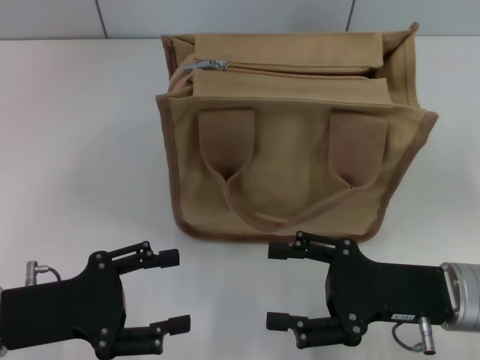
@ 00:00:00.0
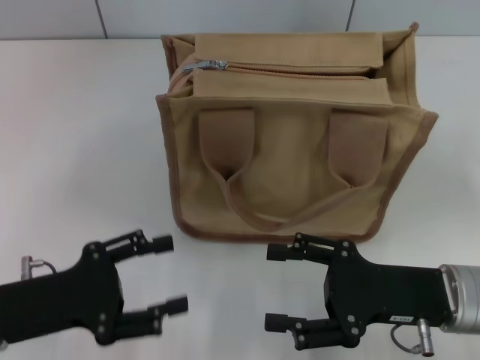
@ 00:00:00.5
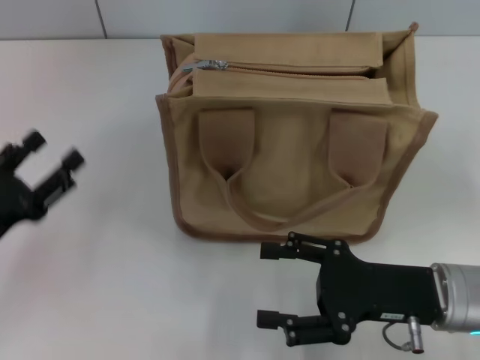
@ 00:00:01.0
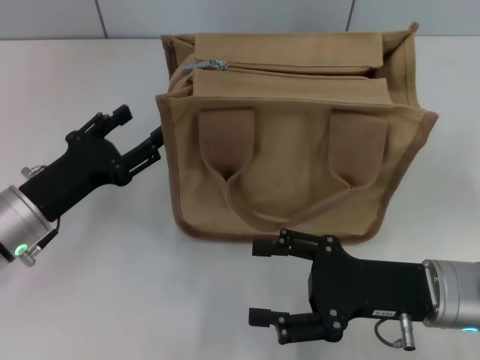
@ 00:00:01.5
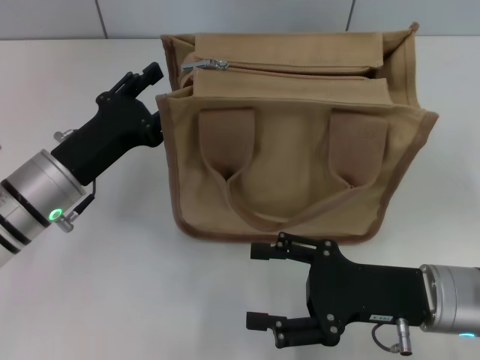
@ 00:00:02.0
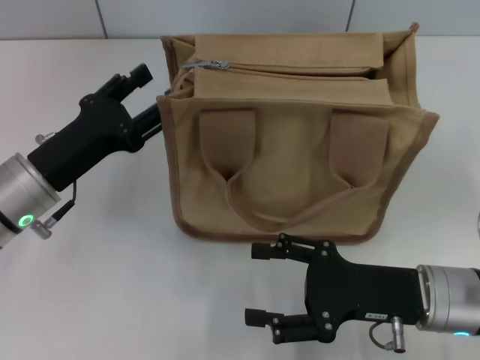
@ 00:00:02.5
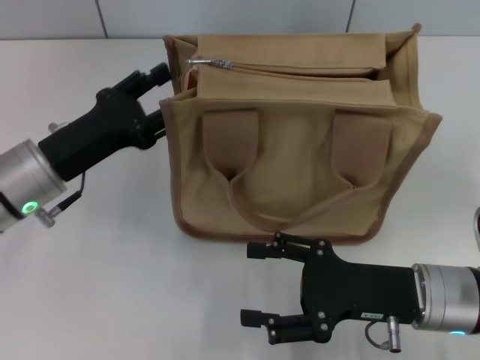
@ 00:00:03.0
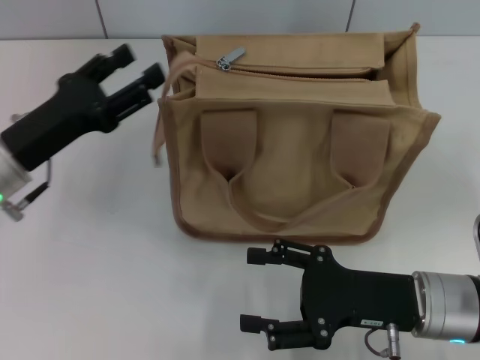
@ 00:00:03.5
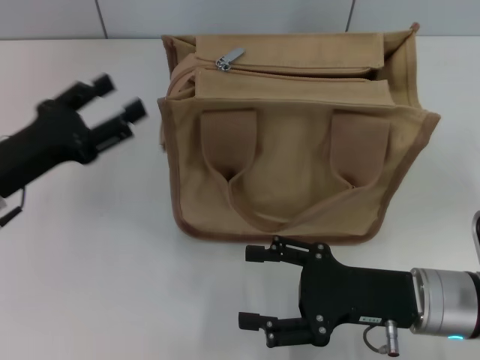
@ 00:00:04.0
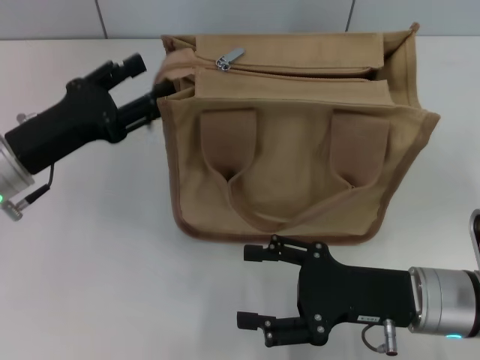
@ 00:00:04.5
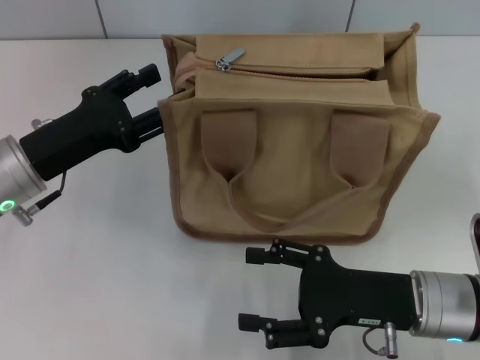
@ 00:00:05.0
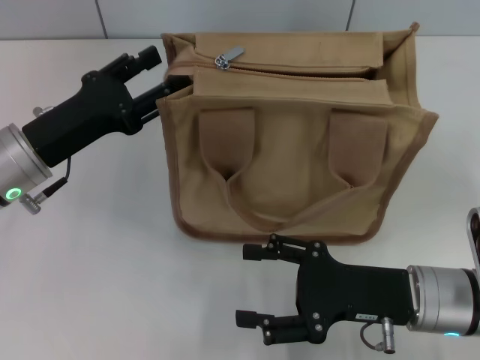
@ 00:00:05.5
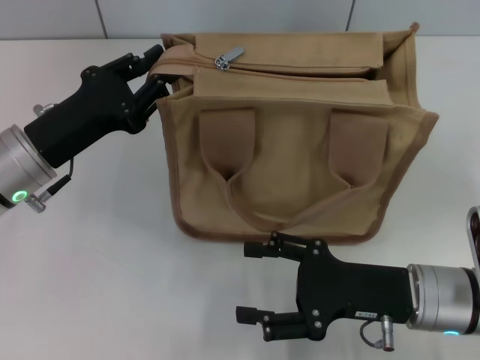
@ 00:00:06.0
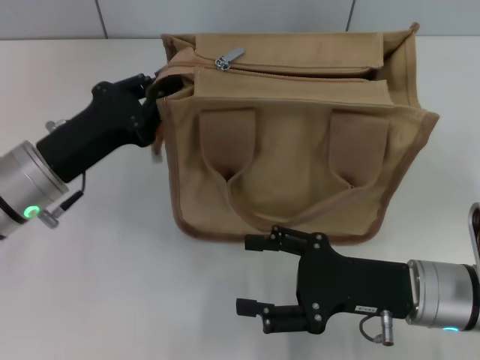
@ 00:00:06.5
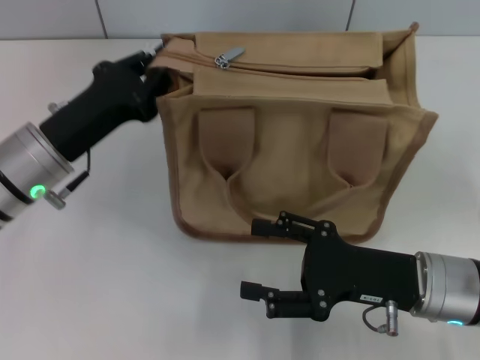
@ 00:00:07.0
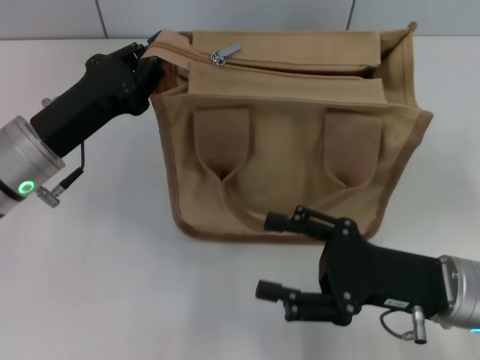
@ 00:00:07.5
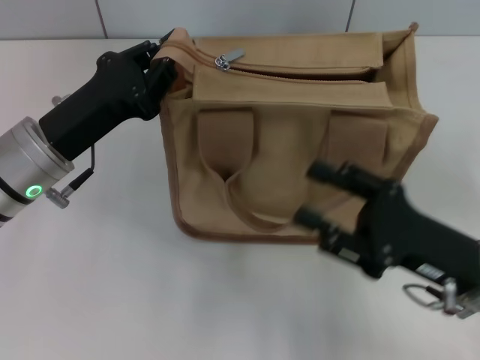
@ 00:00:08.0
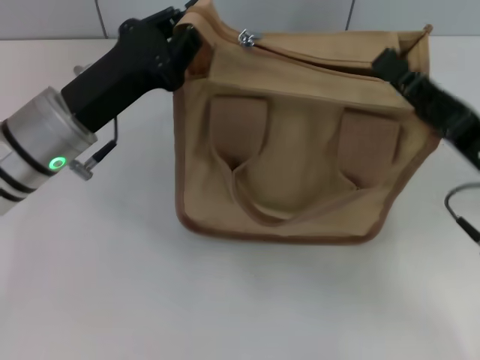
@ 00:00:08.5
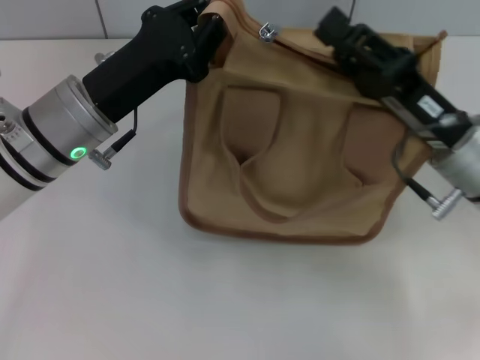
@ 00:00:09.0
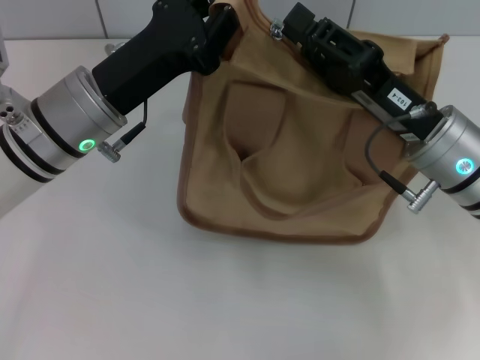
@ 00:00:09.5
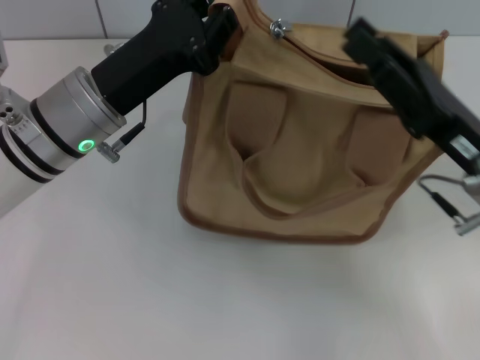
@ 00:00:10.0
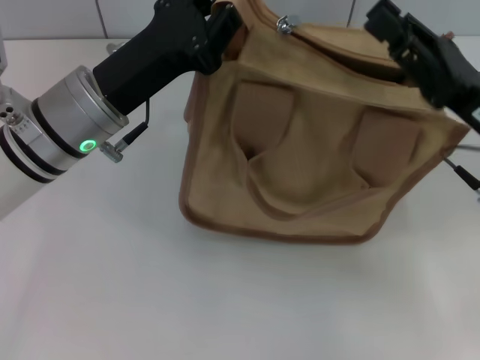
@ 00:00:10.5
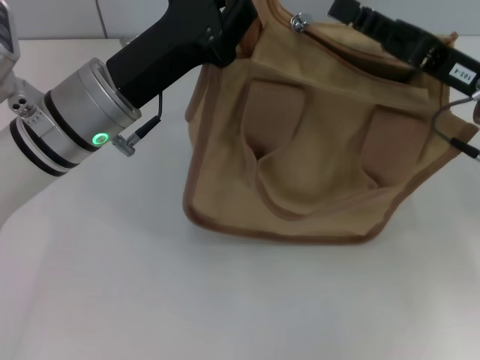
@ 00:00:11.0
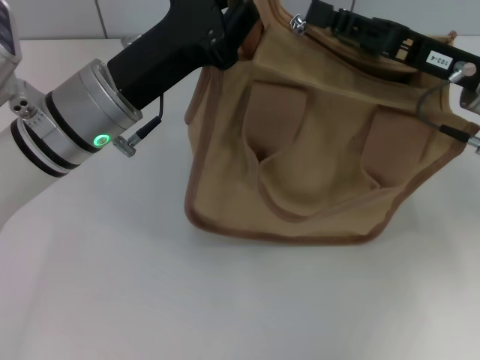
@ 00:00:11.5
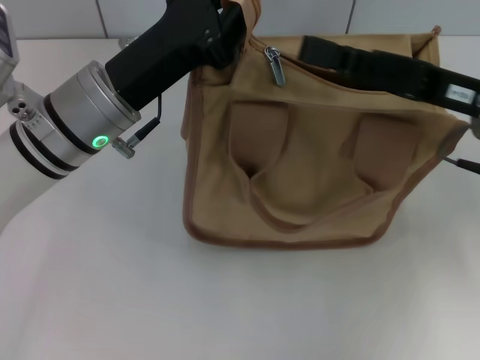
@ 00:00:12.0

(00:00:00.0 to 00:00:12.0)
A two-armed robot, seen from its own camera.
00:00:00.0 - 00:00:02.0: The left gripper heads forward and to the right, covering approximately 10 cm.
00:00:02.0 - 00:00:04.0: The left gripper heads to the left, covering about 5 cm.
00:00:04.0 - 00:00:06.0: The left gripper closes its fingers.
00:00:06.0 - 00:00:08.0: The left gripper closes up.
00:00:08.0 - 00:00:10.0: The right gripper shifts some 5 cm forward, and closes up, while the left gripper changes place by roughly 5 cm.
00:00:10.0 - 00:00:12.0: The right gripper goes roughly 5 cm forward.

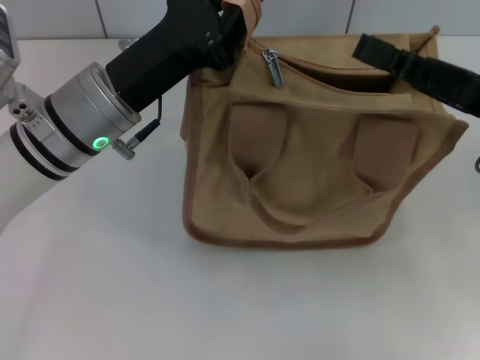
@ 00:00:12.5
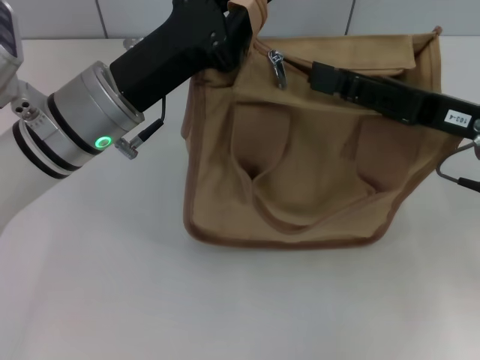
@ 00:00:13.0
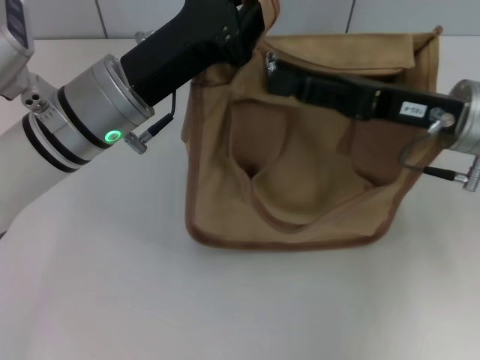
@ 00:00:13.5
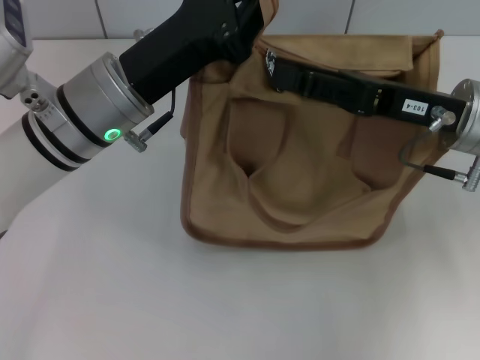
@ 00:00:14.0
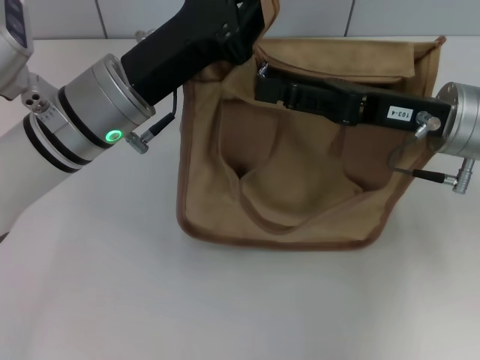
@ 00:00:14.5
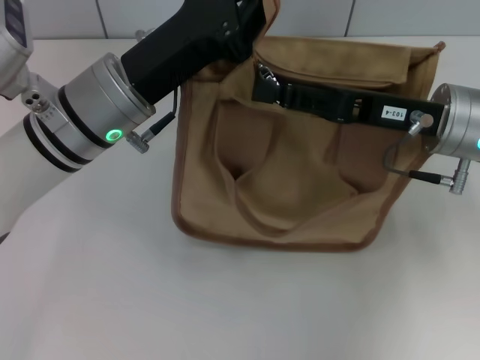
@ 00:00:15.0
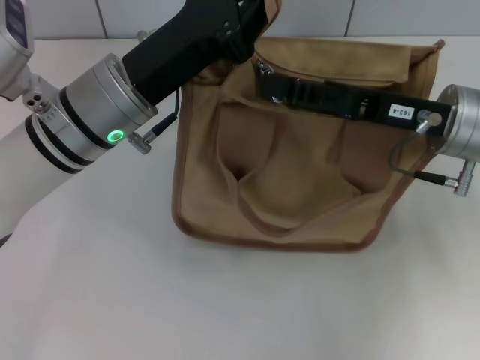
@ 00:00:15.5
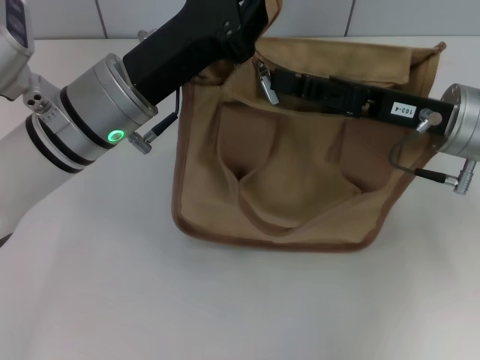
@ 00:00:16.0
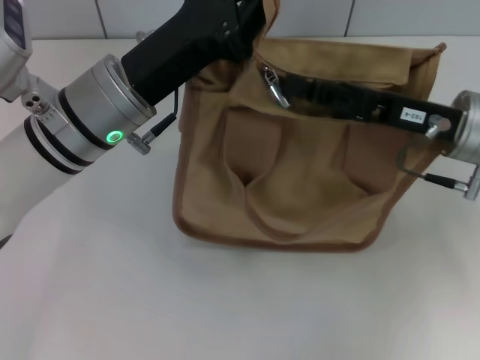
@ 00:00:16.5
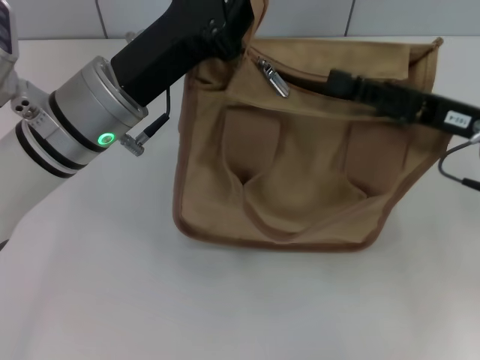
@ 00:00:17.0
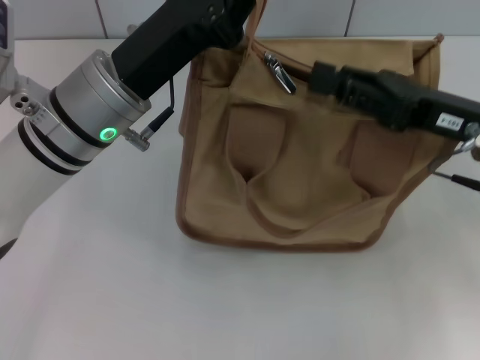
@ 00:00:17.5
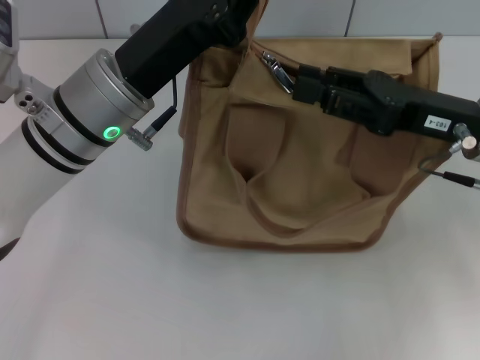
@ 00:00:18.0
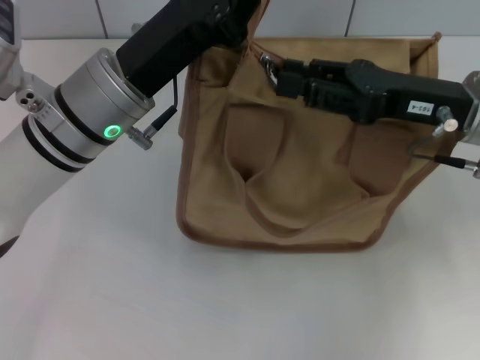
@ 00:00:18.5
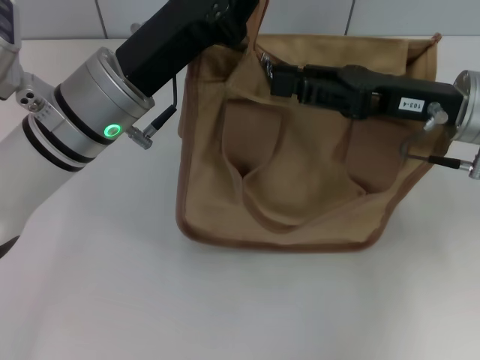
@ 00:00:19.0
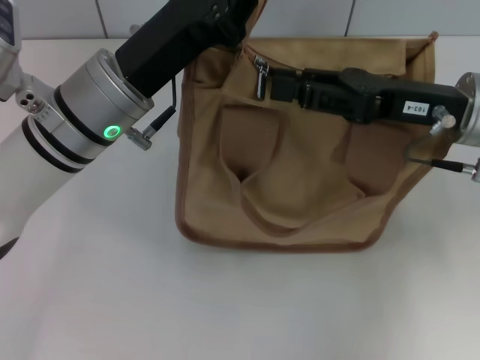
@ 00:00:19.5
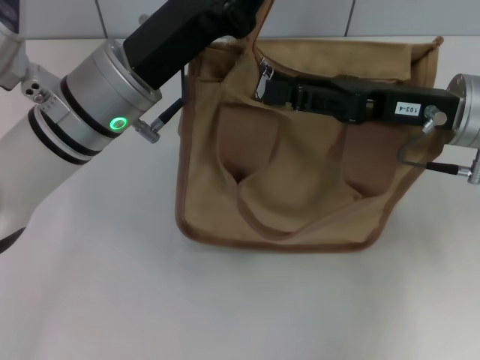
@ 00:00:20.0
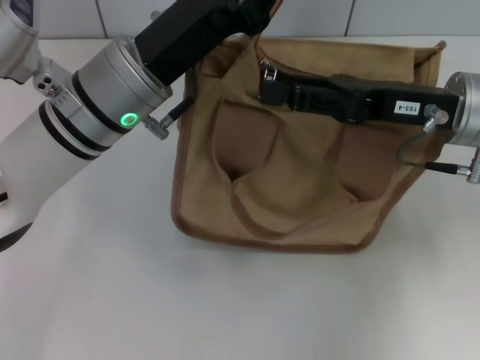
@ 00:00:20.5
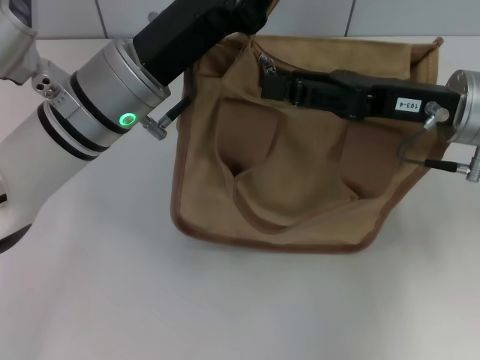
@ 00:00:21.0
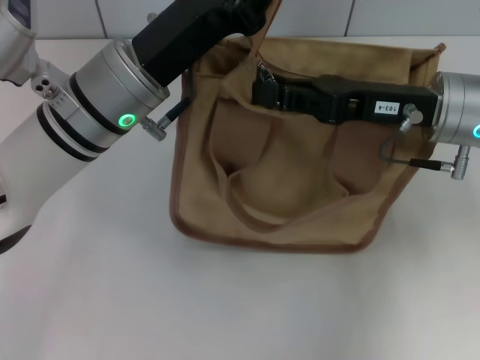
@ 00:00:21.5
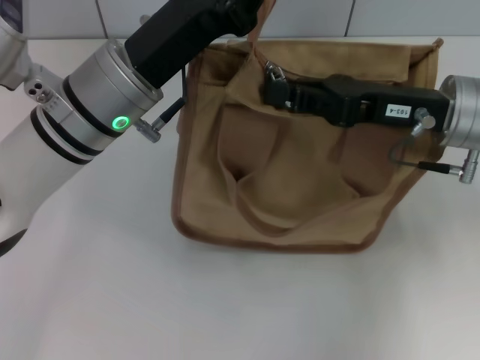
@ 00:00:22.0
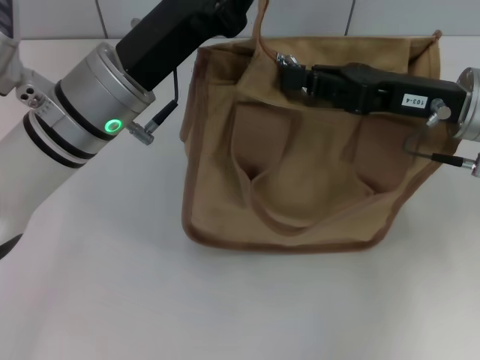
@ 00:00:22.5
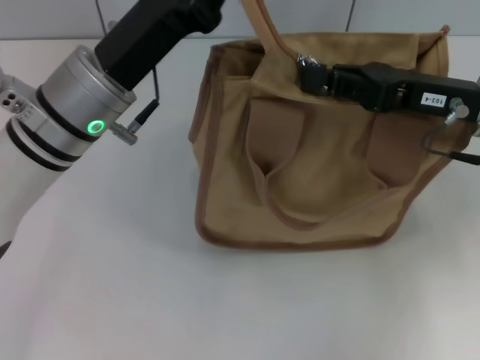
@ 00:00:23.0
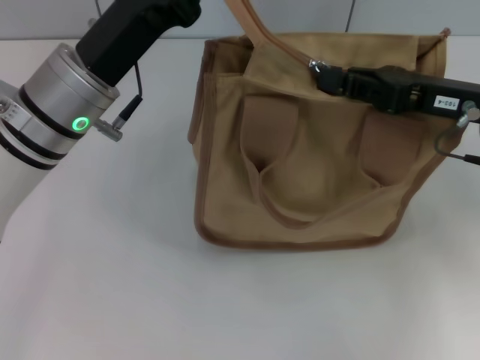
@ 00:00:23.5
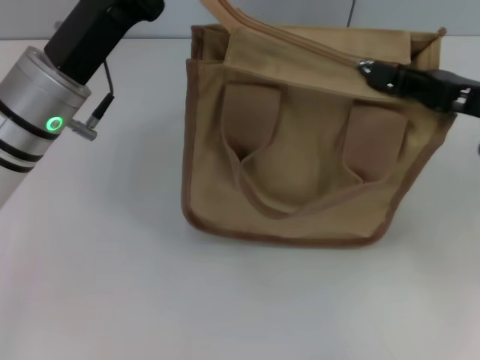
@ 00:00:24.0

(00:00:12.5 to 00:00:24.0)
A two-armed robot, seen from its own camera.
00:00:12.5 - 00:00:14.5: The right gripper goes about 5 cm to the left.
00:00:14.5 - 00:00:16.5: The right gripper closes its fingers.
00:00:16.5 - 00:00:18.5: The right gripper opens up.
00:00:18.5 - 00:00:20.0: The grippers stay close to where they were, moving slightly.
00:00:20.0 - 00:00:22.0: The right gripper closes.
00:00:22.0 - 00:00:24.0: The right gripper travels to the right by roughly 10 cm; the left gripper heads to the left, covering some 5 cm.

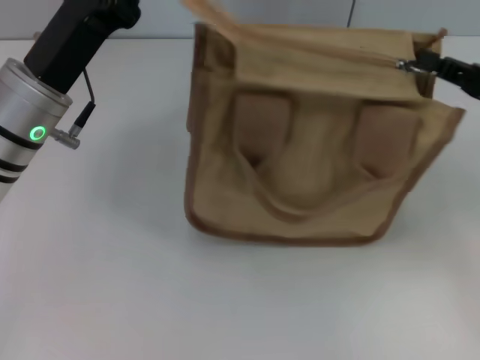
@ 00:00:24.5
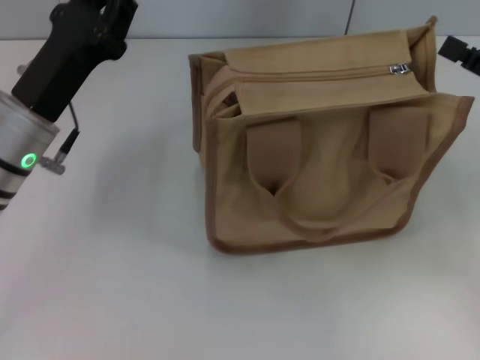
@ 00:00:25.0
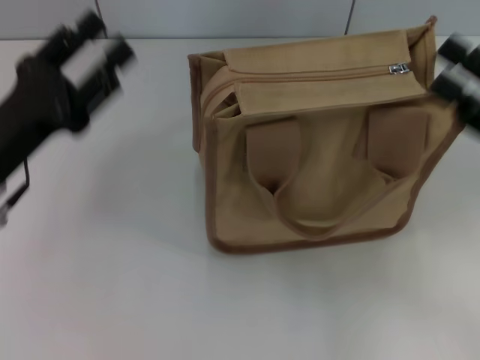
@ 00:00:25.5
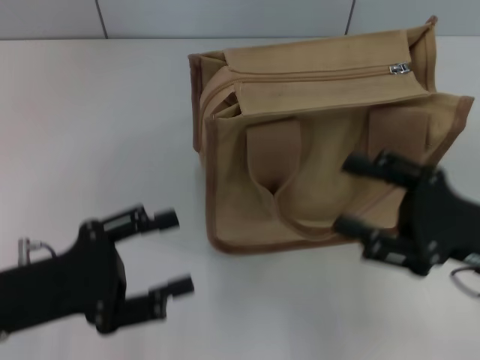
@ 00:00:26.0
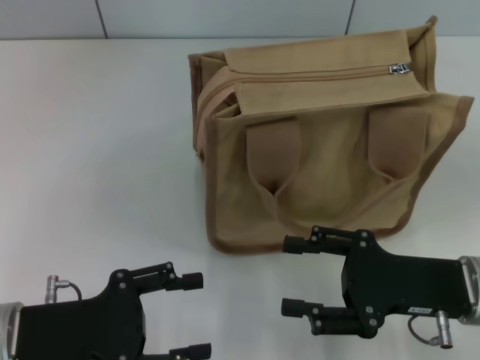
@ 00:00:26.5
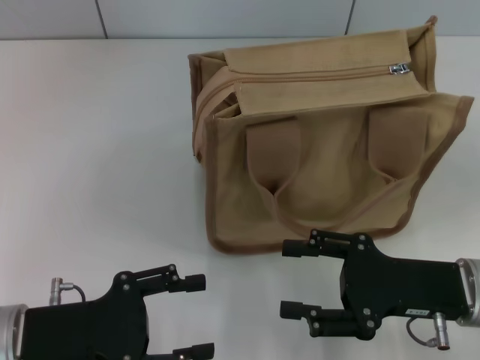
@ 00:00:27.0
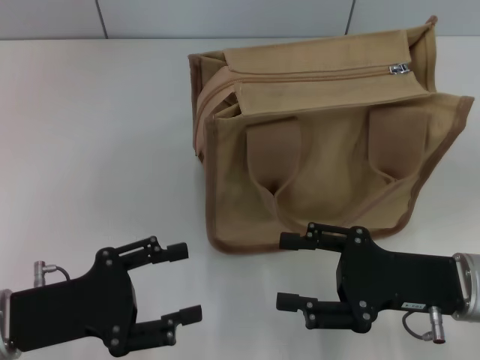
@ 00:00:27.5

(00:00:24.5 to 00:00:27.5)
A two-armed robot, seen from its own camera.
00:00:24.5 - 00:00:26.0: The right gripper goes about 10 cm backward, to the left and downward, and opens up. The left gripper is displaced backward, downward and to the left by some 15 cm, and opens.
